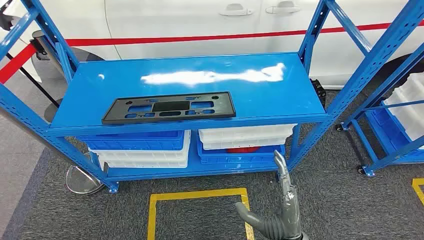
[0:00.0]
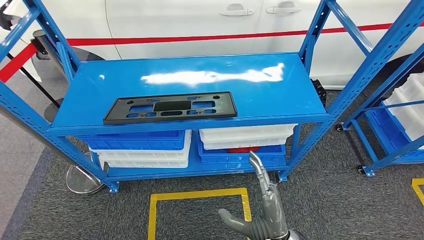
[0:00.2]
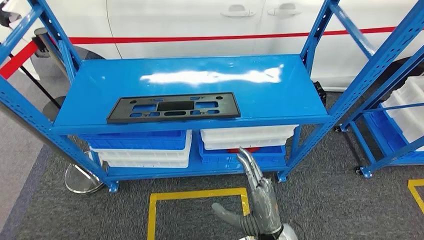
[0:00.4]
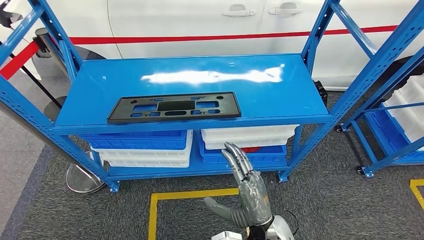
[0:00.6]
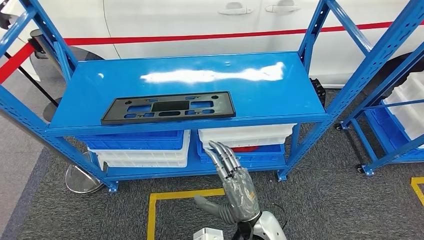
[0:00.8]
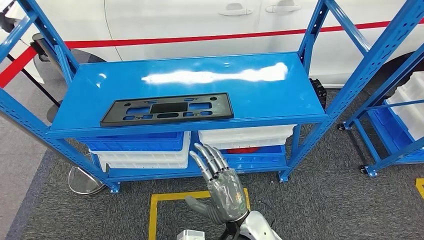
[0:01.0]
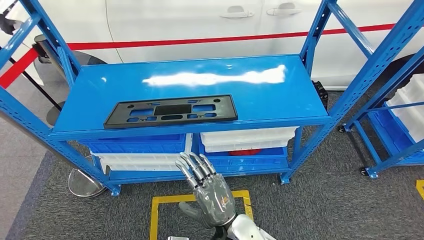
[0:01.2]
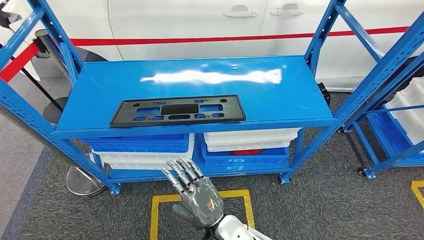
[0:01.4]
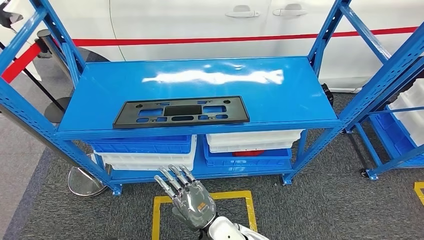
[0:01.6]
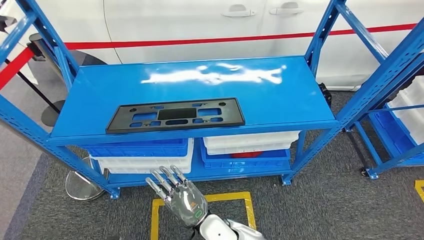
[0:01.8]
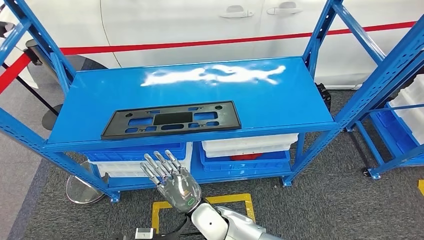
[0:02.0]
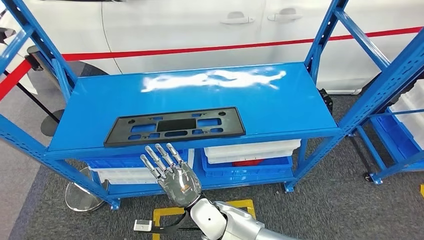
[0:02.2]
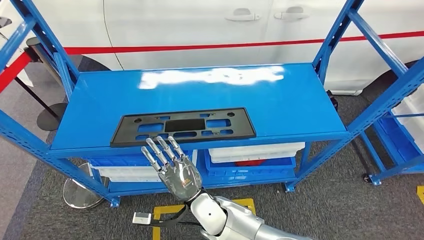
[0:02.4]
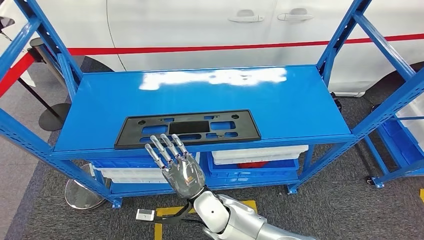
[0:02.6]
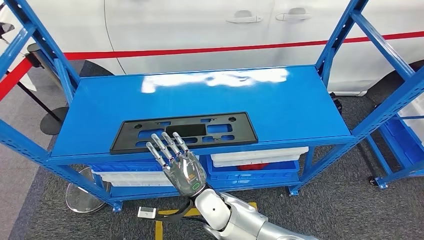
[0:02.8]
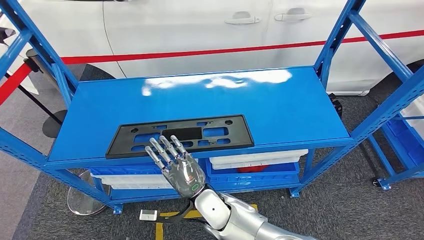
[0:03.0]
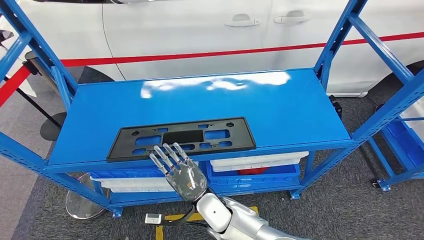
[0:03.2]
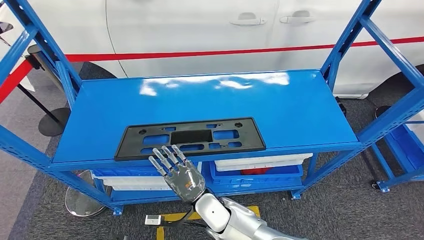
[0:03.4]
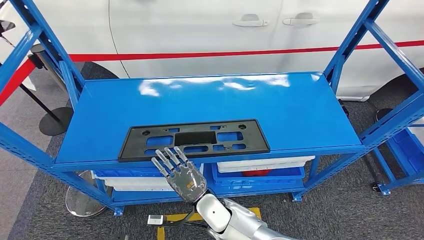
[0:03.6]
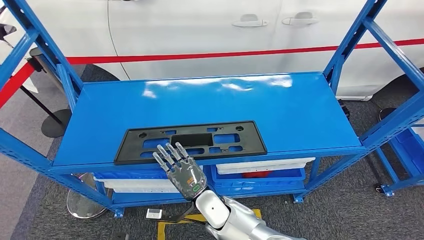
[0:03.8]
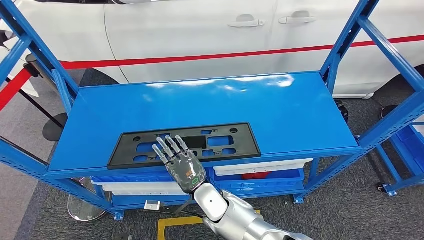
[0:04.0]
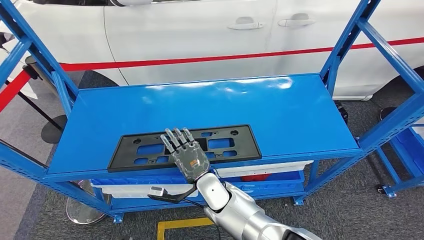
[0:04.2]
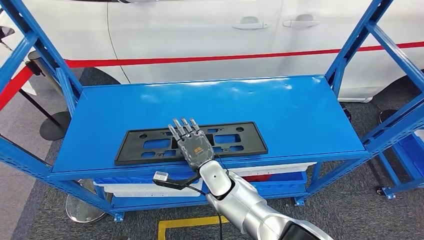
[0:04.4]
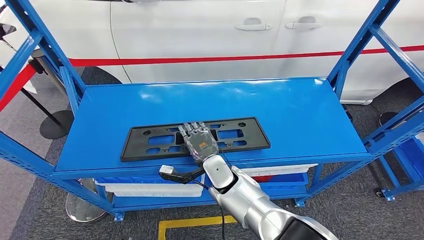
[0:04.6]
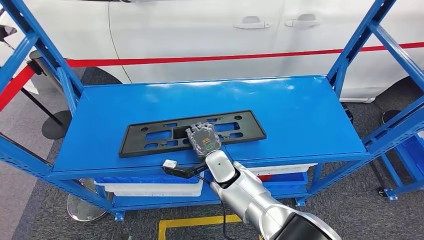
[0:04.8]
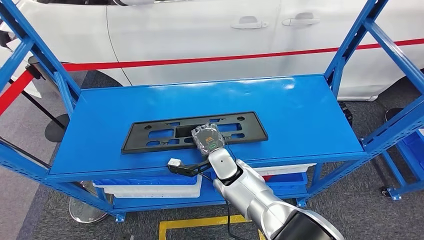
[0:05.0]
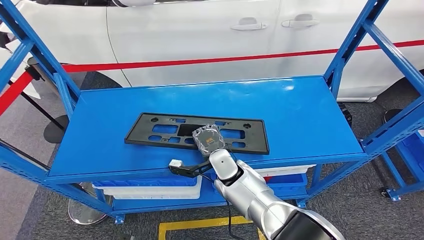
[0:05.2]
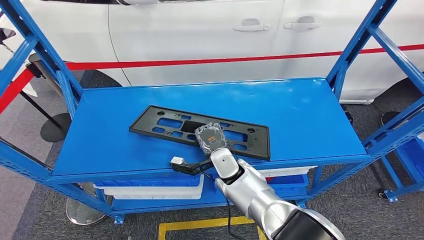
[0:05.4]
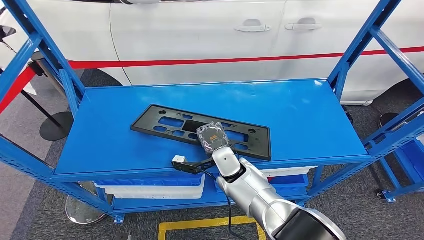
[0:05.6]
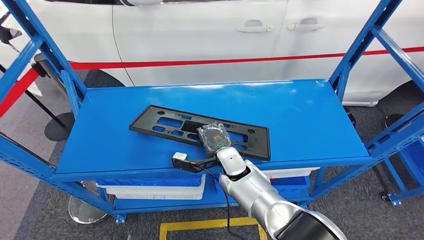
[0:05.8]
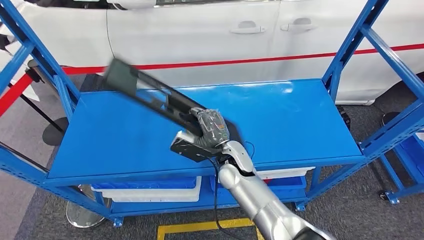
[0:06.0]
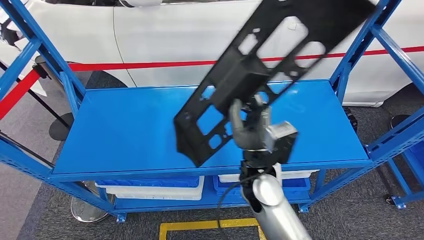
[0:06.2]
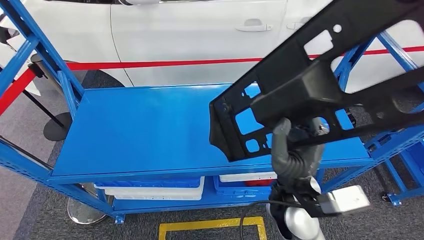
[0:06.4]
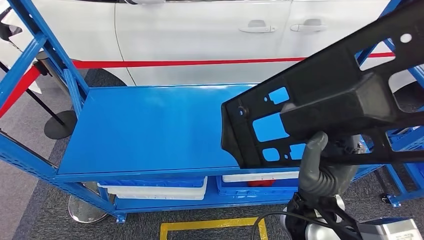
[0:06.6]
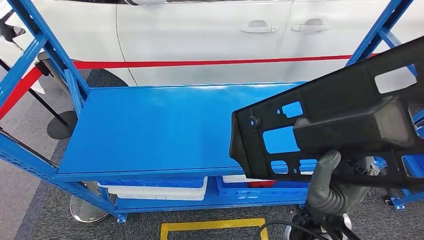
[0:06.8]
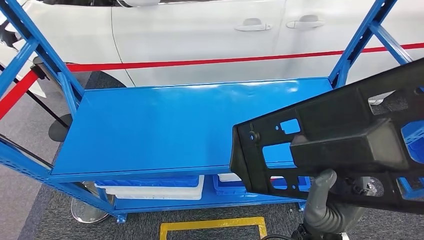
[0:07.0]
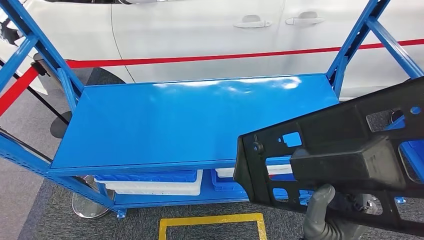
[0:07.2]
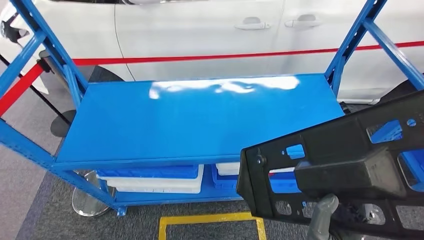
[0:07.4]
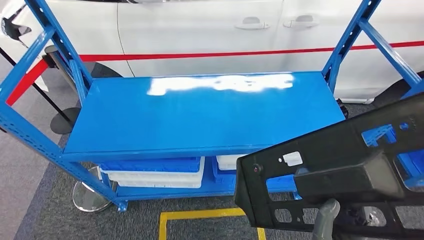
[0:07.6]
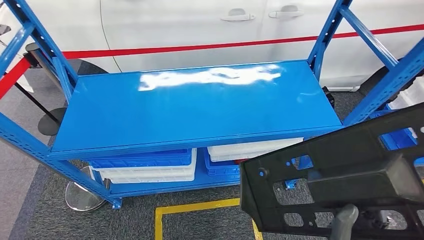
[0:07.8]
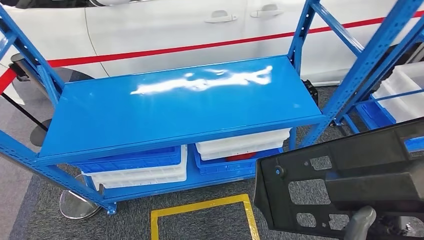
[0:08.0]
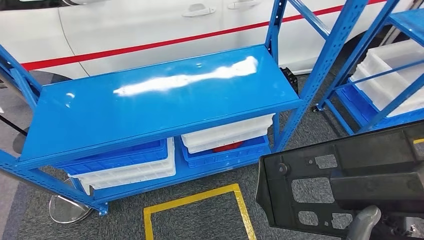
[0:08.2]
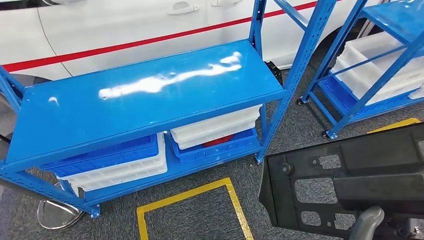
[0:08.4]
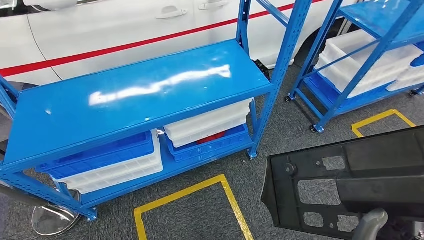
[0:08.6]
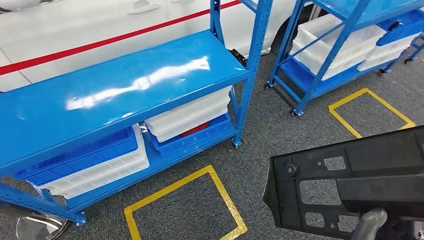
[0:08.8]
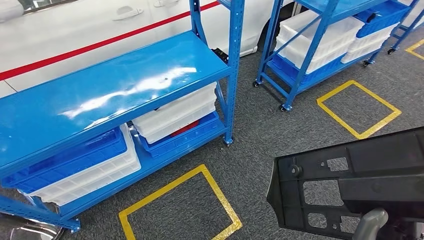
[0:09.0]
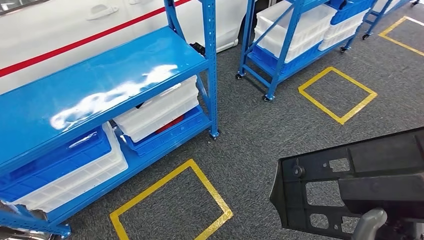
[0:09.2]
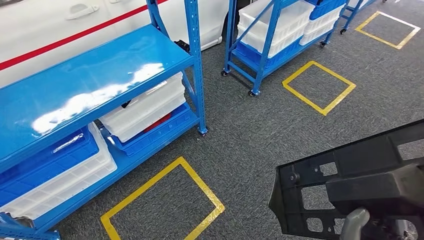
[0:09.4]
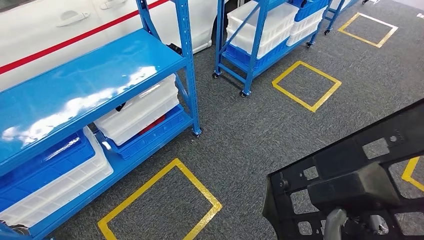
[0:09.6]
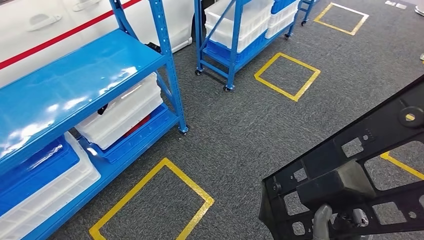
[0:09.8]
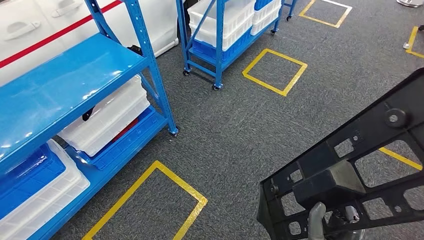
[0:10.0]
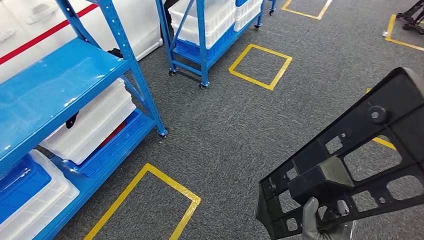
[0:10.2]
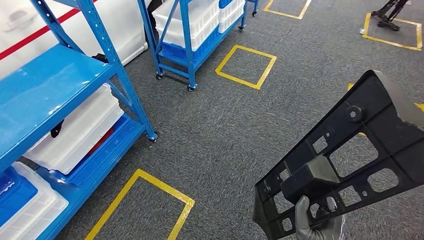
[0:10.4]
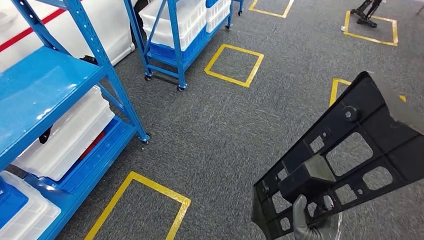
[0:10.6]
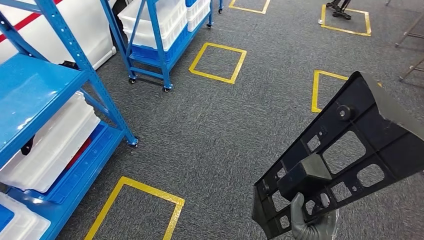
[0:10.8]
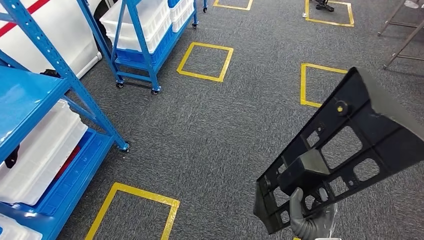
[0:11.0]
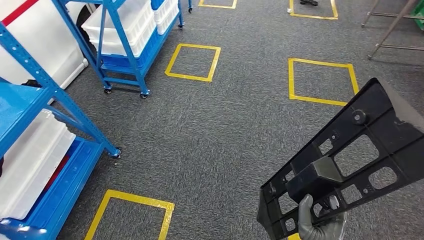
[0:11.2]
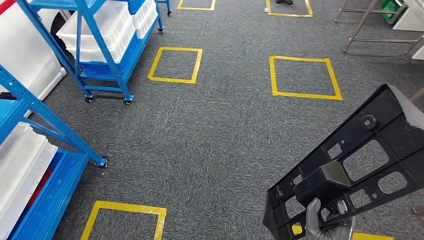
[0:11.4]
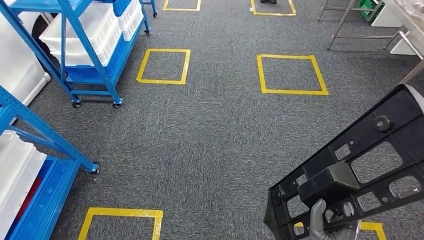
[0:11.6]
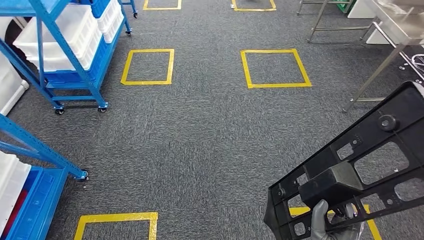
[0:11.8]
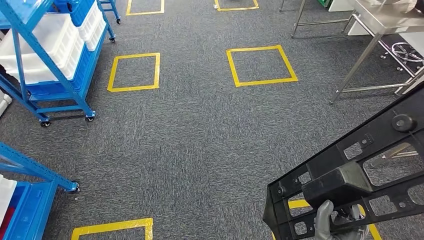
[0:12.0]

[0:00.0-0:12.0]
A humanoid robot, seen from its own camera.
Step, 0:00.0 to 0:07.0: Pick up the large material from the shelf.

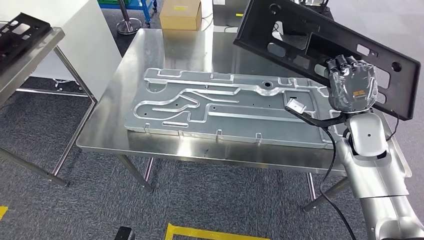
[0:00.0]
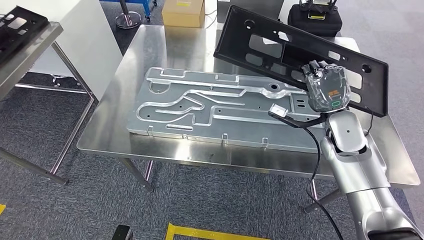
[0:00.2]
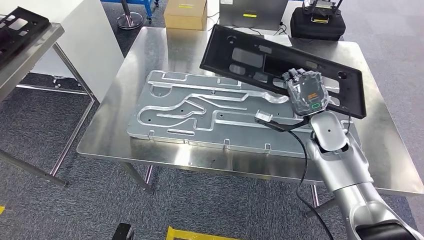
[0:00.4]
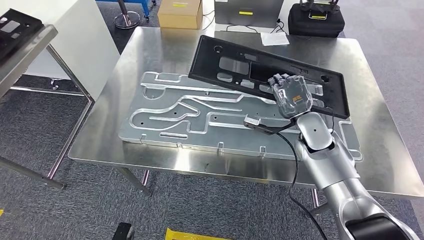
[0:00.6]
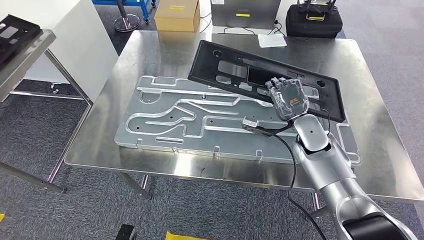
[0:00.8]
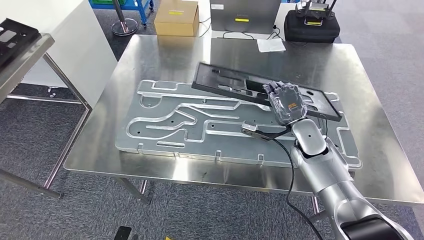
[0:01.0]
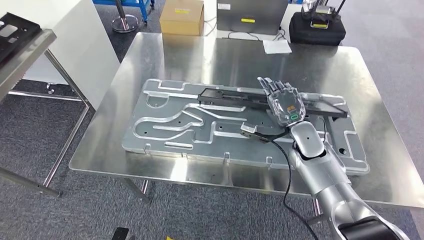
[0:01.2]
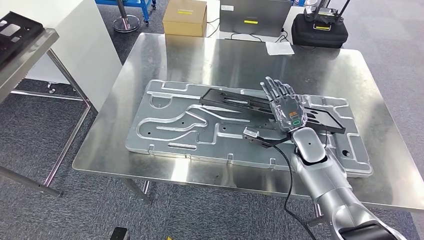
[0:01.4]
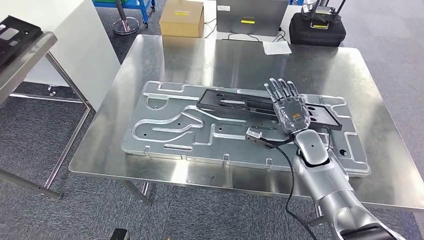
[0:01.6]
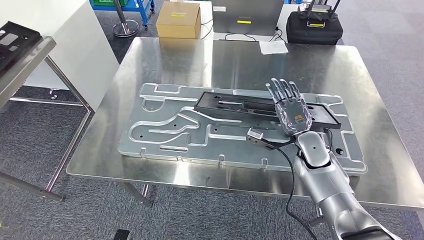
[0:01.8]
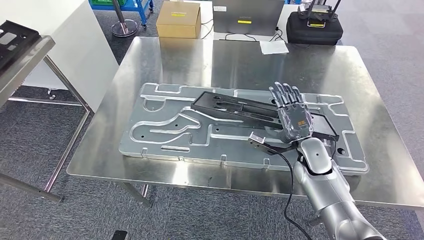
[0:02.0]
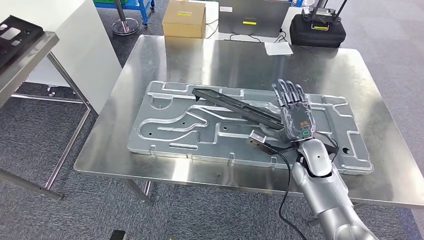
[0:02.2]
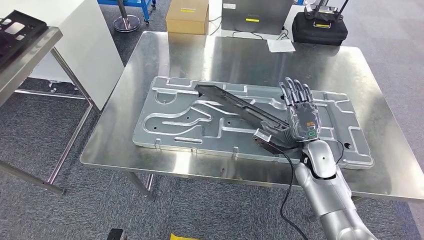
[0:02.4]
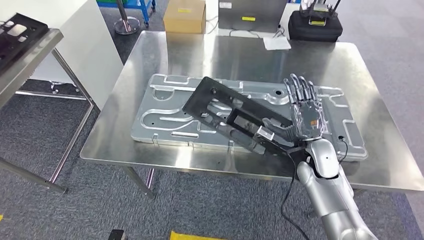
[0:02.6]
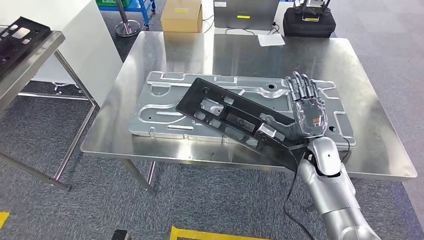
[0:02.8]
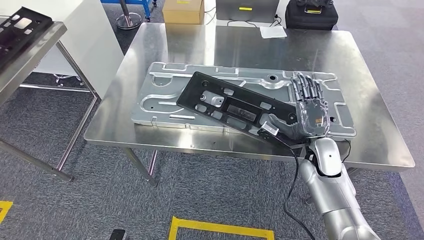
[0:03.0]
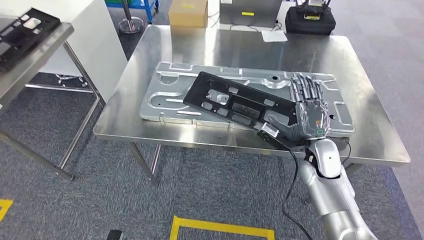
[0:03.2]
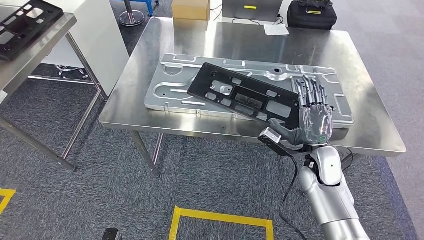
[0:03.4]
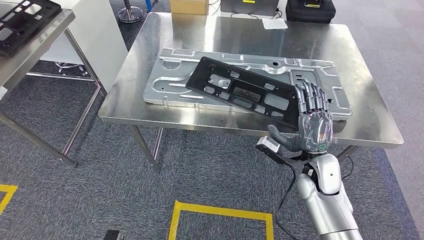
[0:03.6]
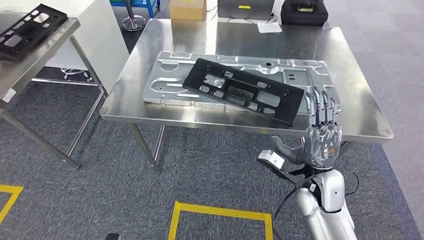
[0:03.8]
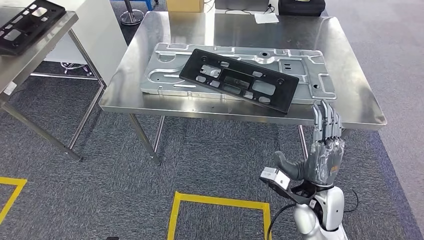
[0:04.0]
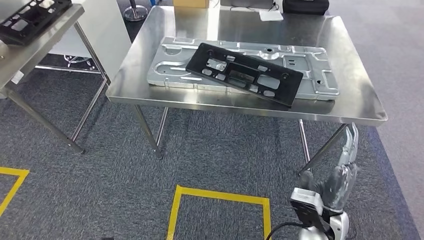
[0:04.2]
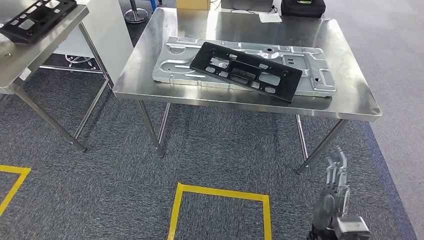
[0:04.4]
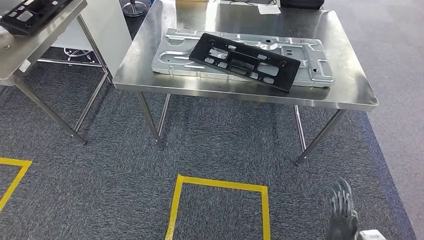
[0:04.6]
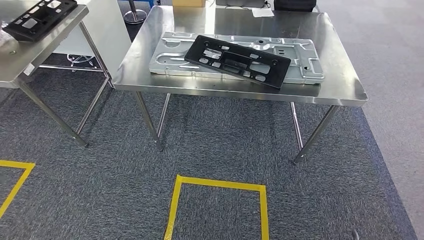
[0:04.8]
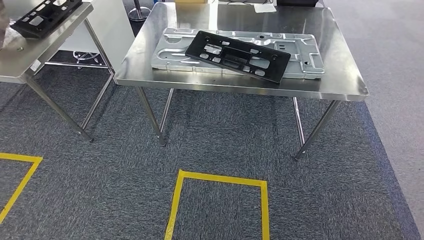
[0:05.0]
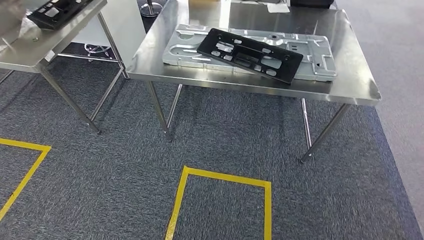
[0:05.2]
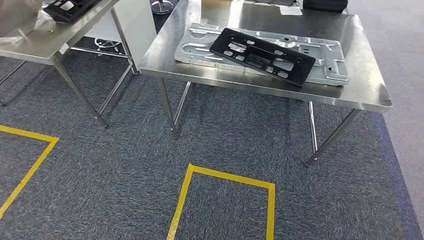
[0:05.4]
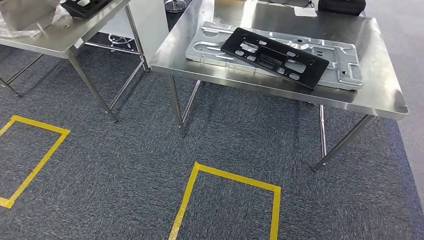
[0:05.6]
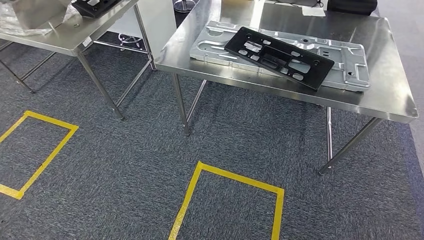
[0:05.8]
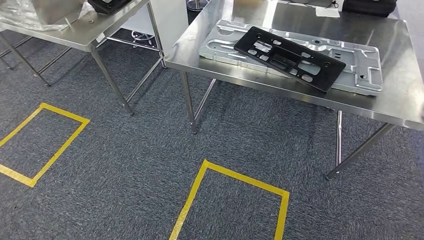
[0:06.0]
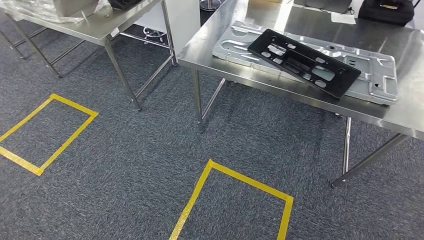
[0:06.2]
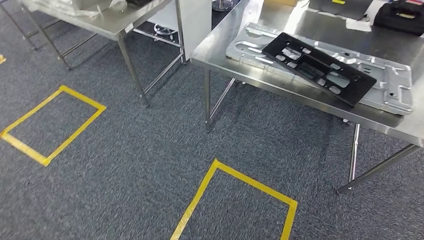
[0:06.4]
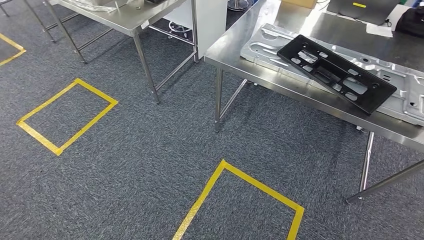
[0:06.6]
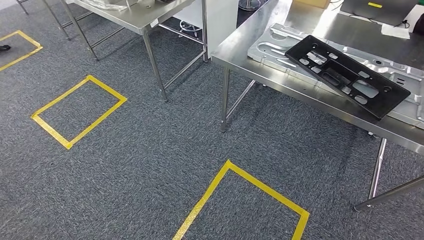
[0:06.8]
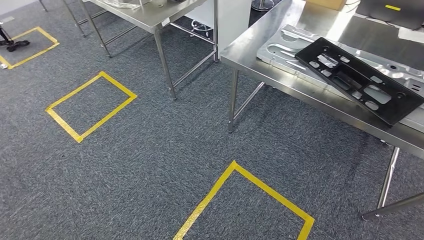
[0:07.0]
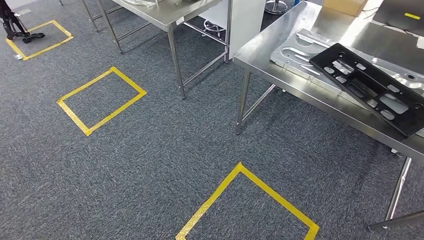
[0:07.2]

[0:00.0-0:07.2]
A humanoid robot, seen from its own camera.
Step, 0:00.4 to 0:05.0: Insert the large material into the corresponding hole on the workbench.
